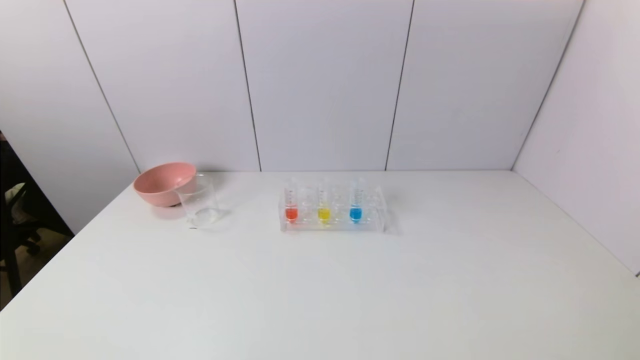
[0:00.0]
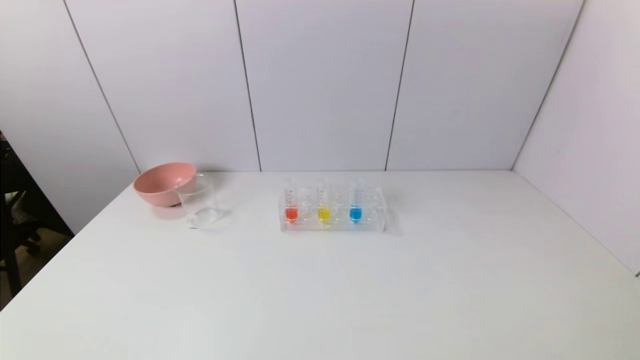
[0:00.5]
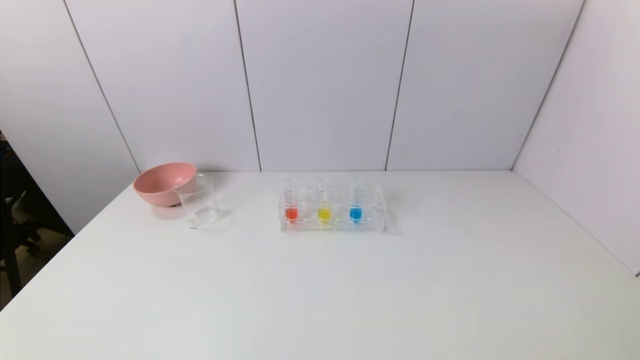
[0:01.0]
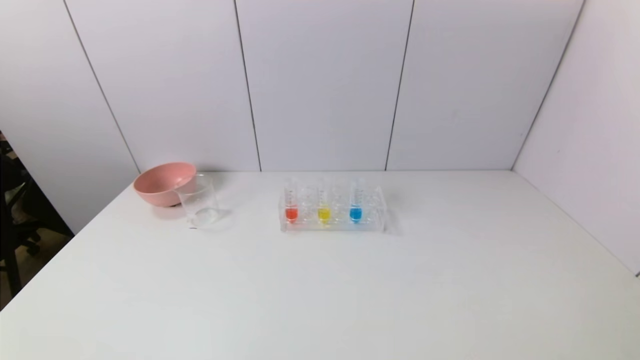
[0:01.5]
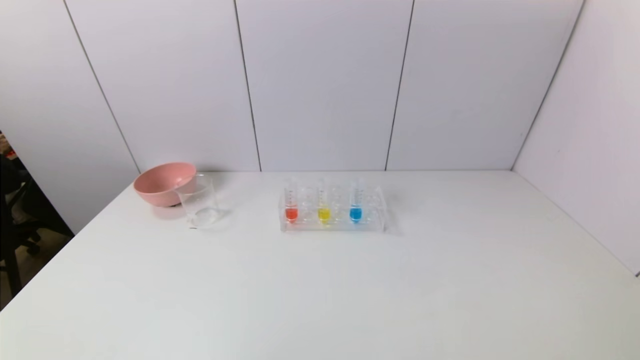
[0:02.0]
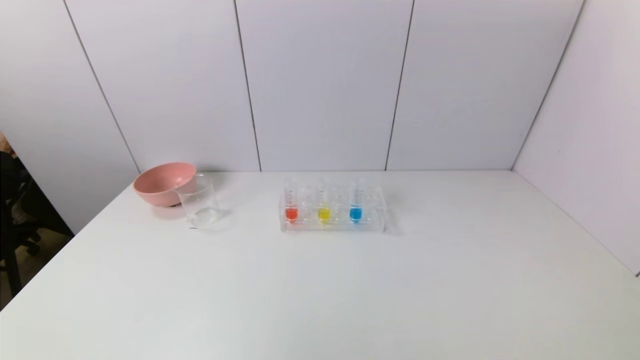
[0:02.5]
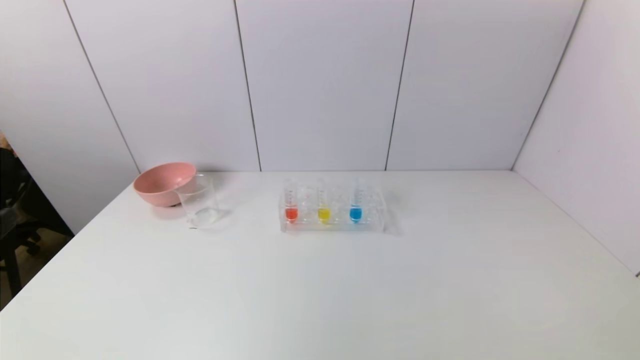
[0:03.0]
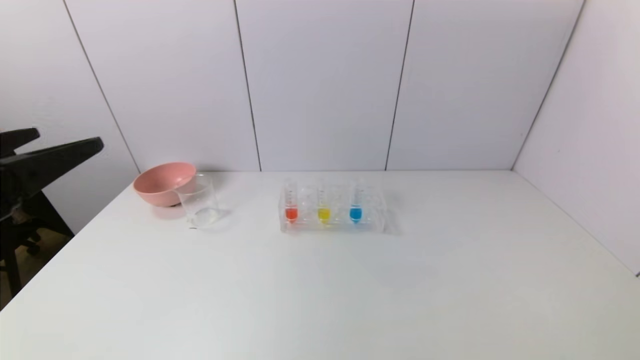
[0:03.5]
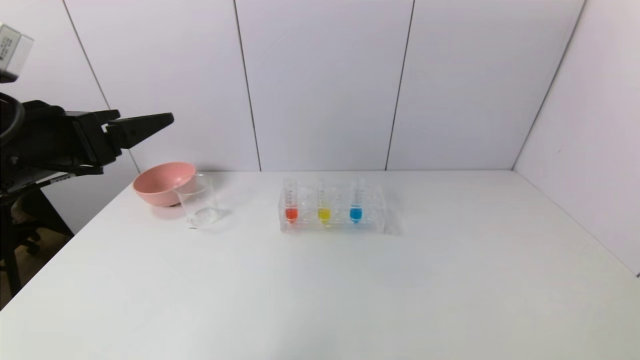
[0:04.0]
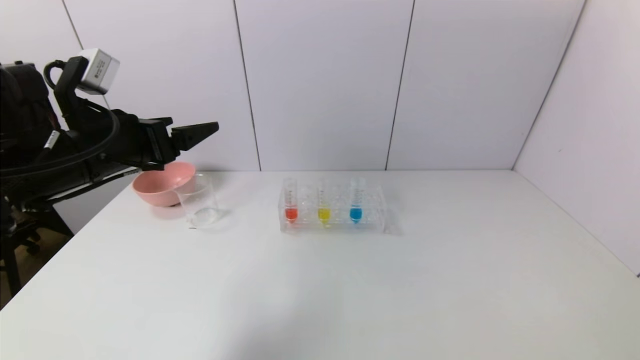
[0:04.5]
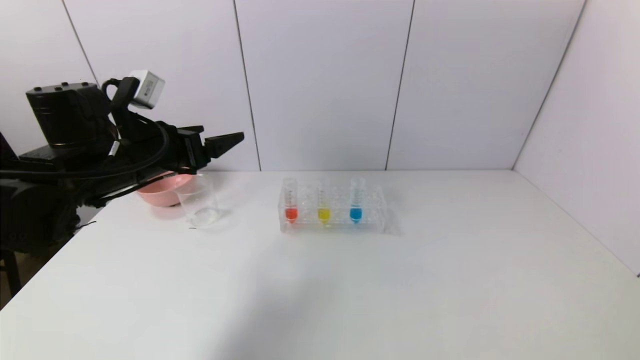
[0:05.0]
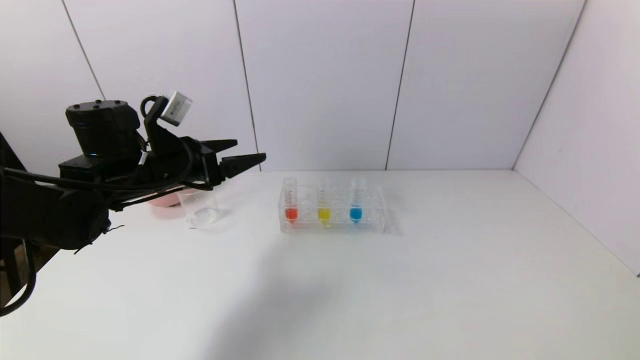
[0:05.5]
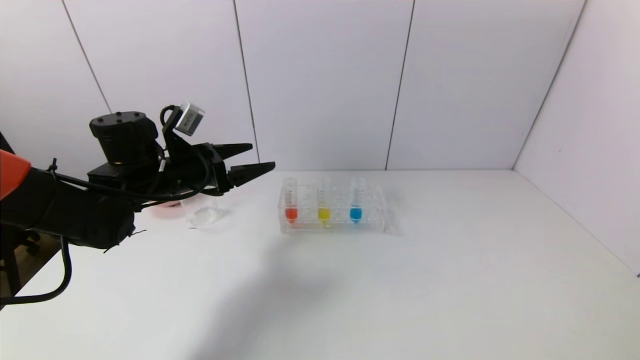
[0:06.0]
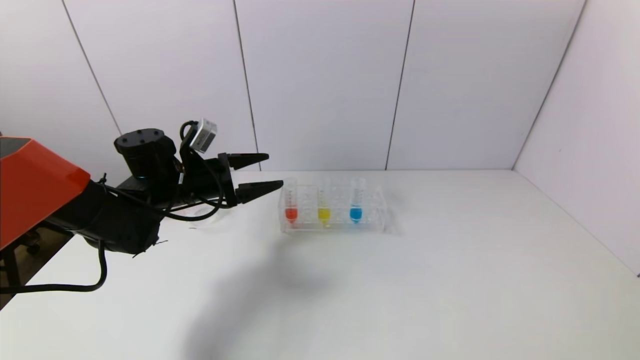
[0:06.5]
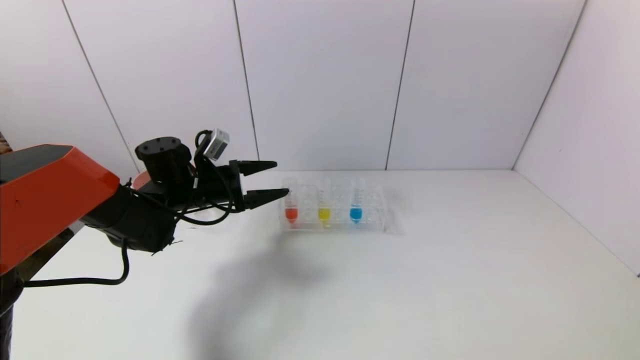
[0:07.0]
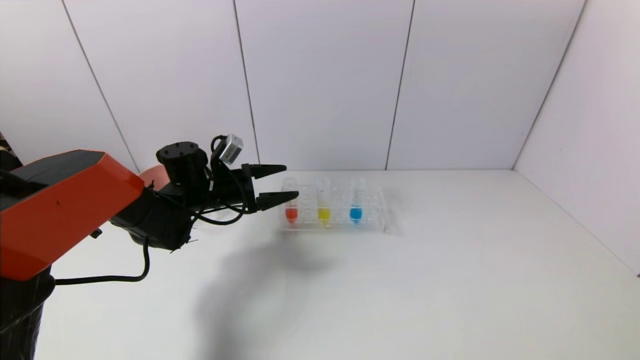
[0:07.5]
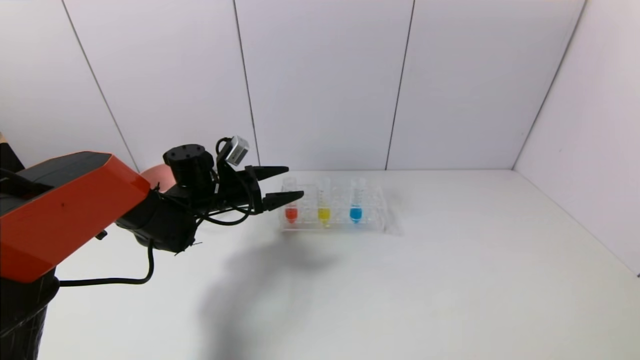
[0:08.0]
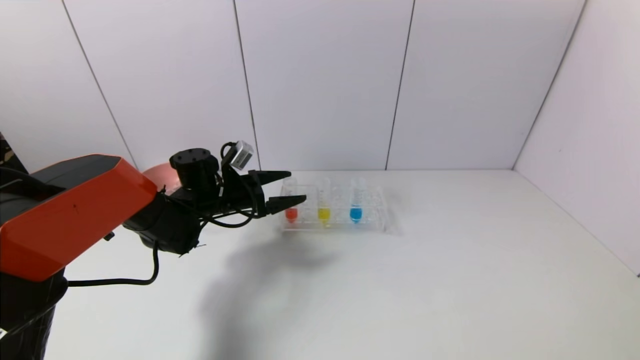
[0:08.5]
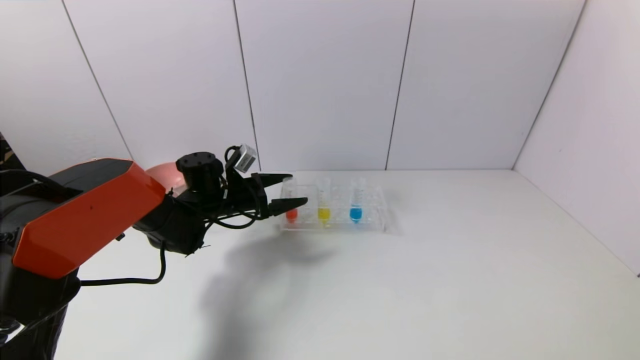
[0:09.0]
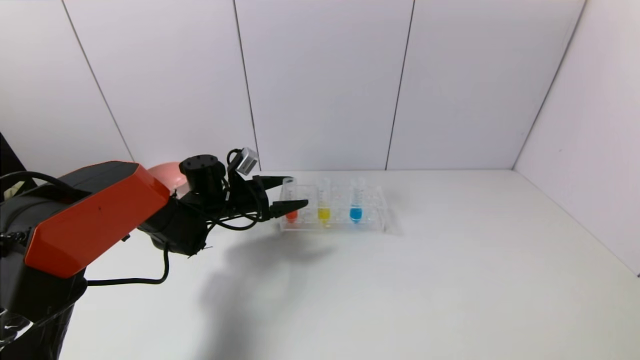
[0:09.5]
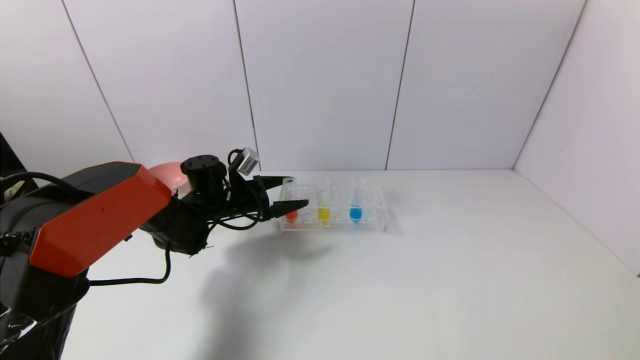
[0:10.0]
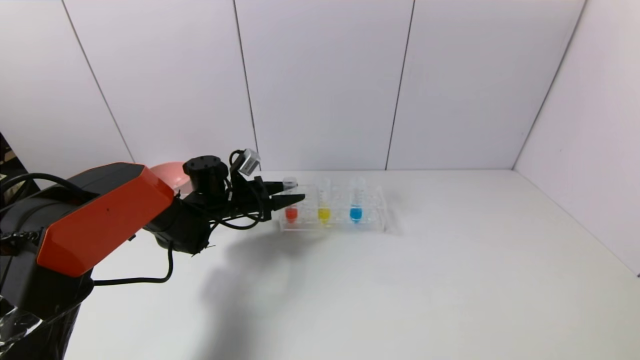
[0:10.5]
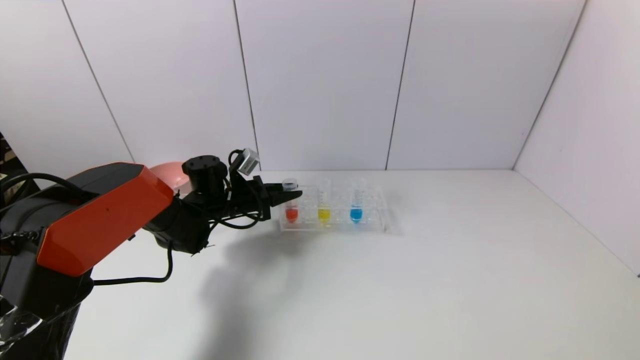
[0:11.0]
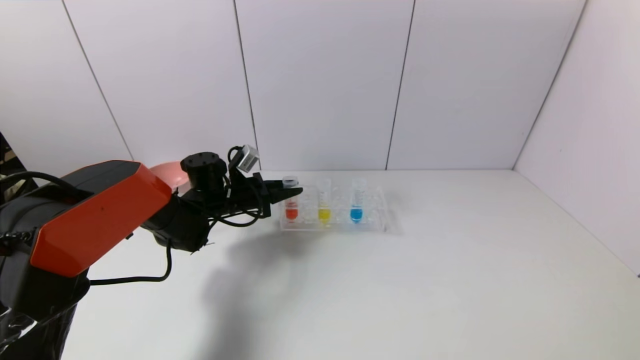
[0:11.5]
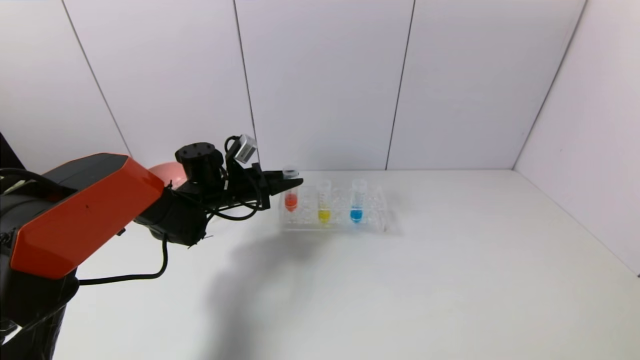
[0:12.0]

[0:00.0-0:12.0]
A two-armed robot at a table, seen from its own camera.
Task of the whole recording: pick up the test tube with red pigment and the test tube with blue pigment by grippers and pour them into the container.
Step, 0:00.0 to 0:11.0: Grasp the red reagent with the left gripper.
0:02.0 to 0:04.0: The left gripper moves forward and upward, roughly 30 cm.
0:04.0 to 0:06.0: The left gripper travels forward and downward by some 15 cm.
0:06.0 to 0:08.0: The left gripper shifts approximately 10 cm downward and forward.
0:08.0 to 0:10.0: The grippers make only small movements.
0:10.0 to 0:12.0: The left gripper closes up.

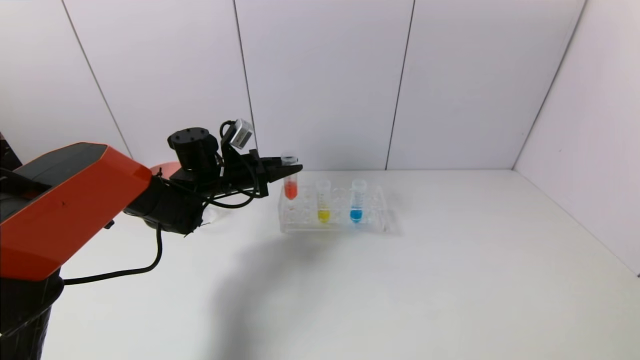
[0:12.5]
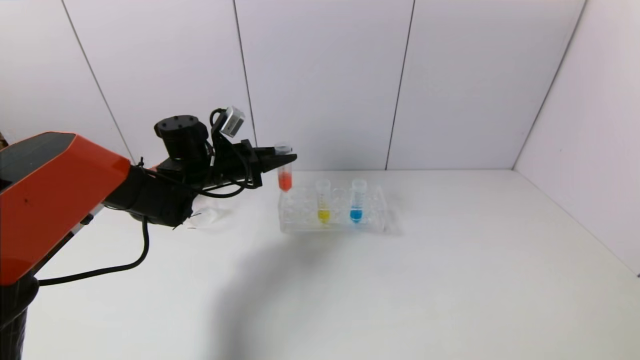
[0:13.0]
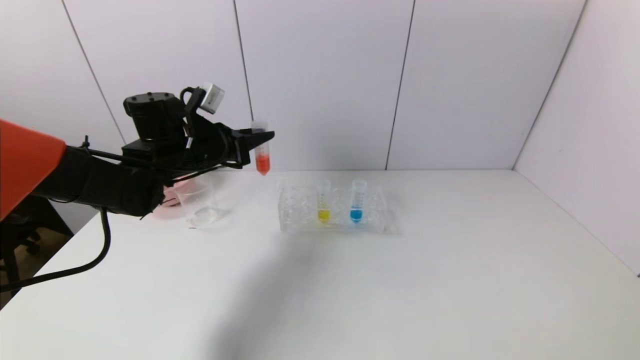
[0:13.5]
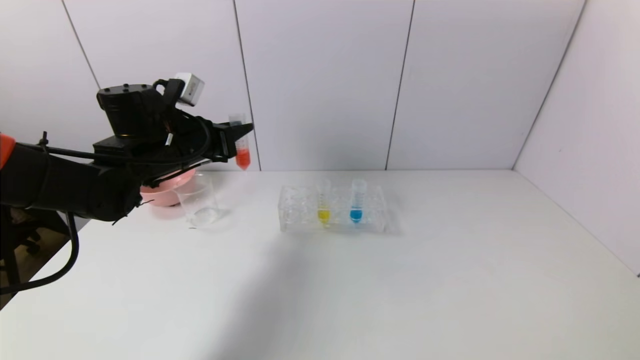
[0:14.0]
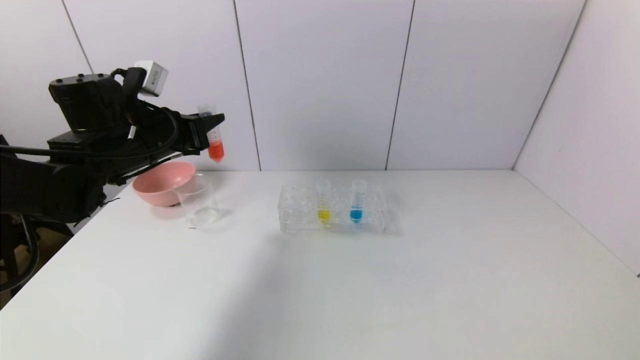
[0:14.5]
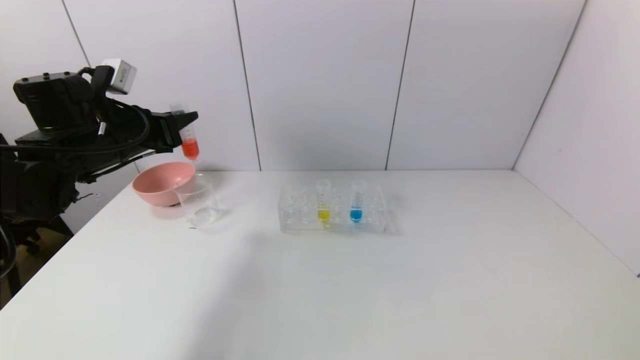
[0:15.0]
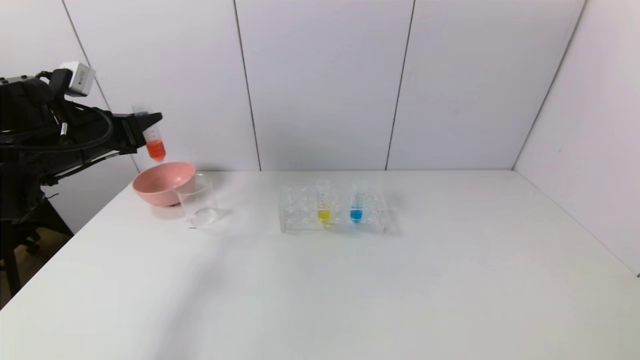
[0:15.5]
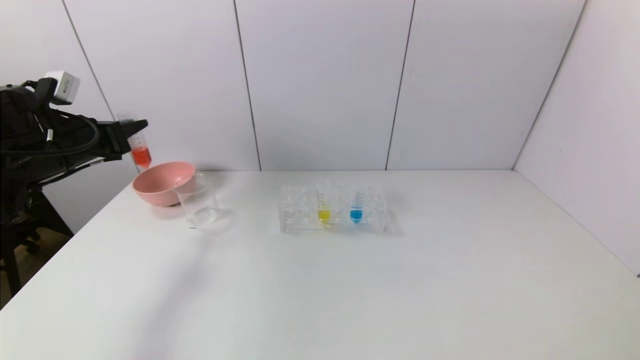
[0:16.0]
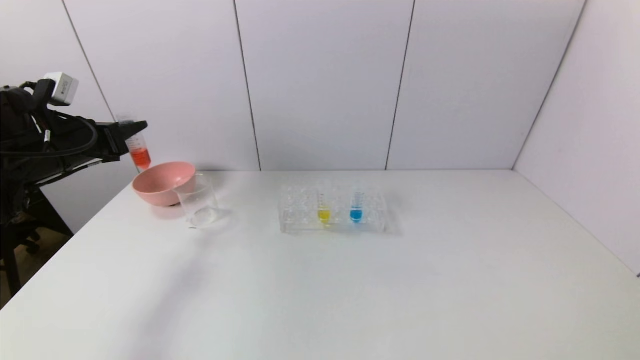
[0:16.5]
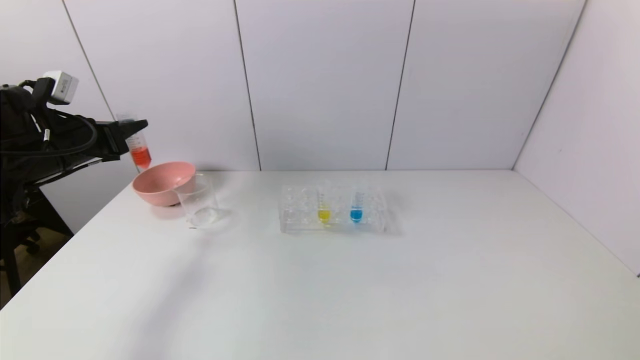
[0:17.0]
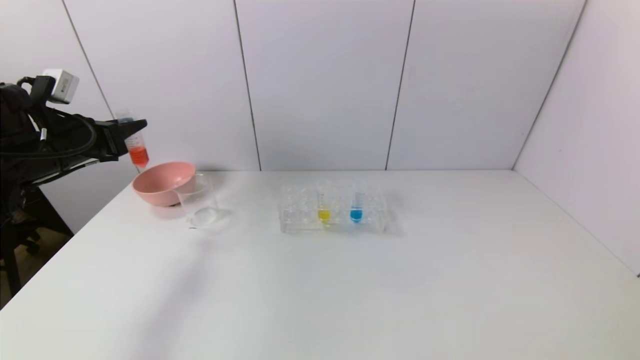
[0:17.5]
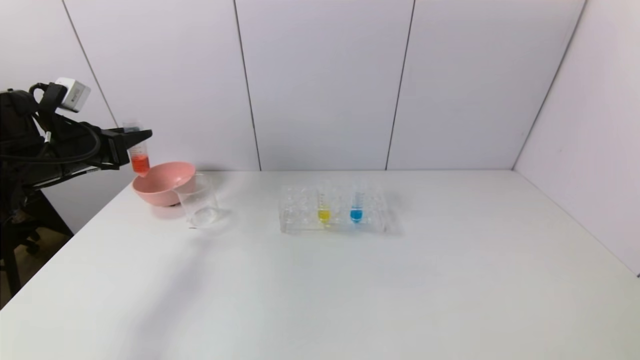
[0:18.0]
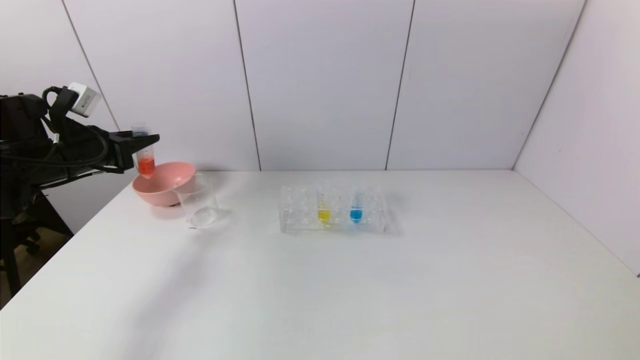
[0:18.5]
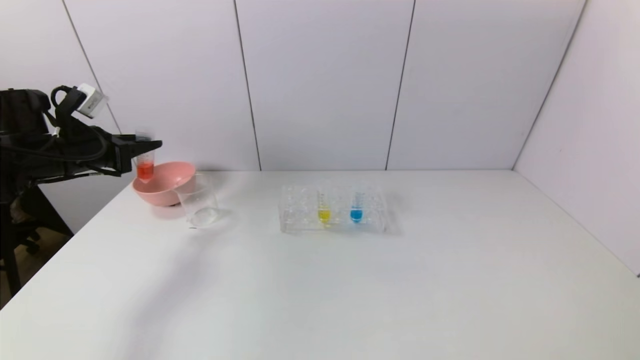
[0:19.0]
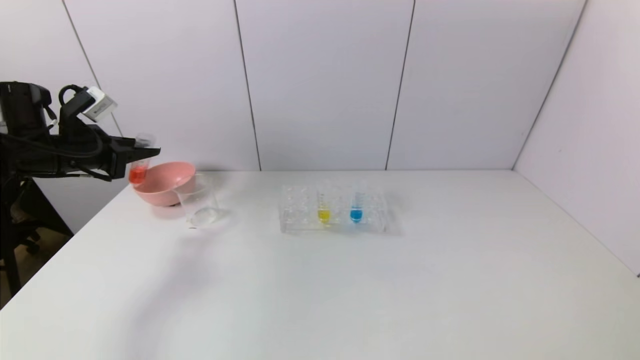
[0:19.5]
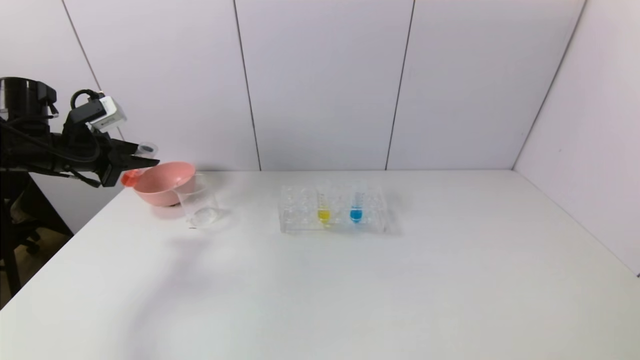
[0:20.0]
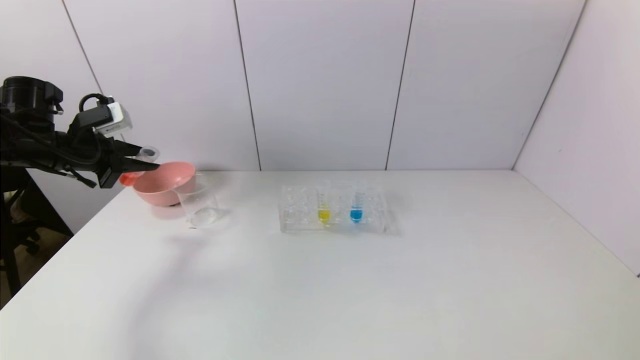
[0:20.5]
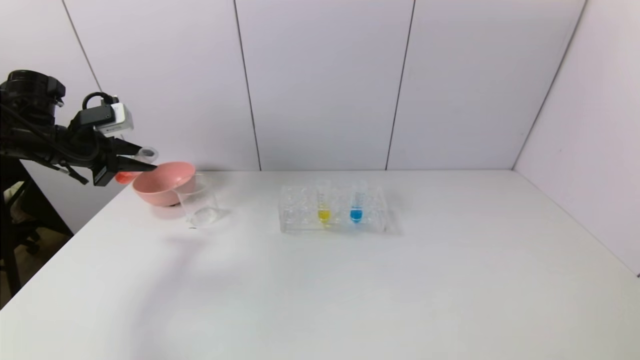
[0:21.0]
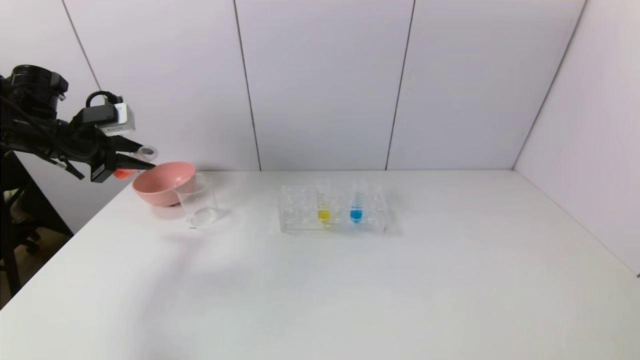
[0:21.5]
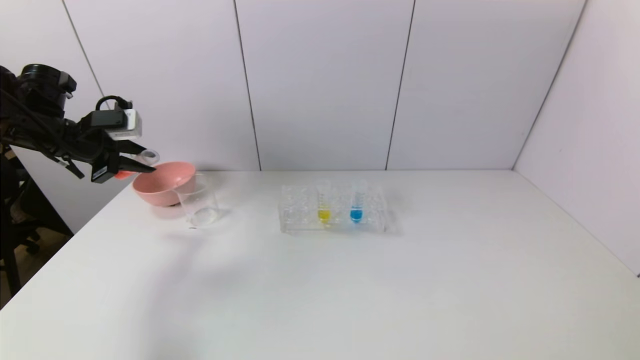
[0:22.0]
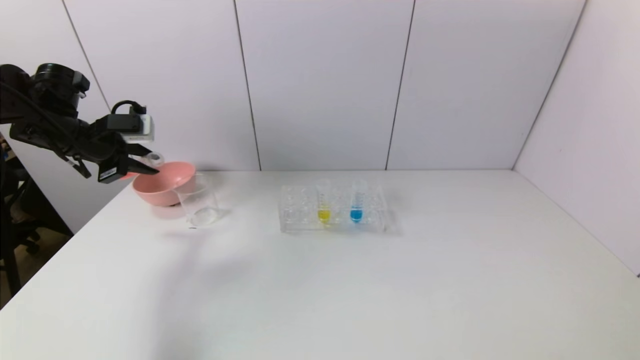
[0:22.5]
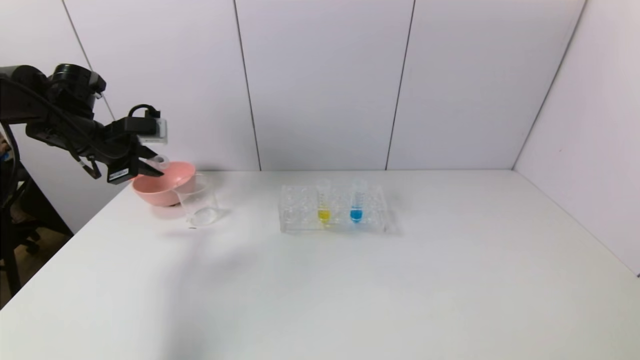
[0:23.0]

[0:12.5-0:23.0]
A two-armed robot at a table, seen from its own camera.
Task of the whole recording: pick up the test tube with red pigment and the test tube with blue pigment by grippers and pour them into the container.
0:12.5 to 0:14.5: The left gripper shifts roughly 15 cm upward, backward and to the left.
0:14.5 to 0:16.5: The left gripper heads to the left, covering some 10 cm.
0:21.0 to 0:23.0: There are only small adjustments of the grippers.
